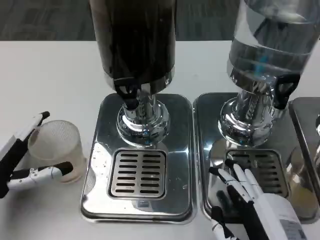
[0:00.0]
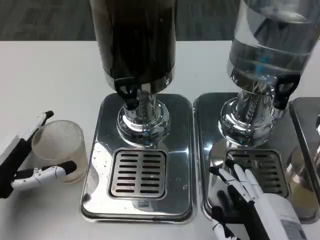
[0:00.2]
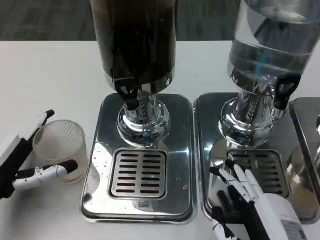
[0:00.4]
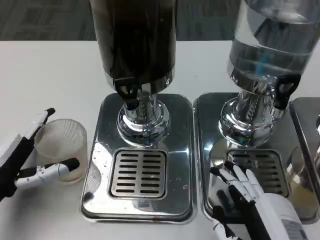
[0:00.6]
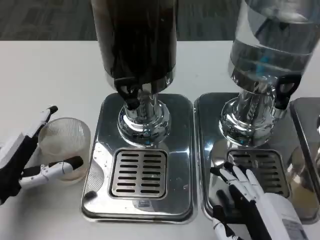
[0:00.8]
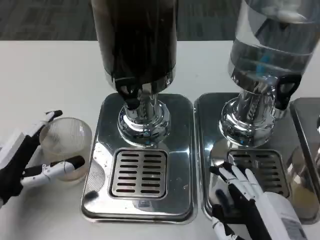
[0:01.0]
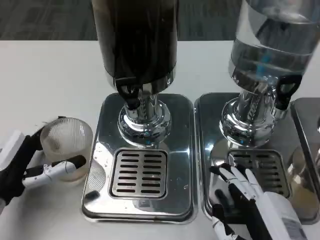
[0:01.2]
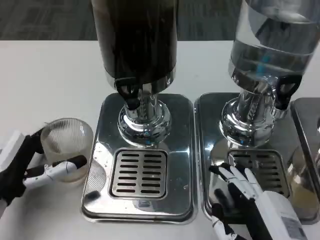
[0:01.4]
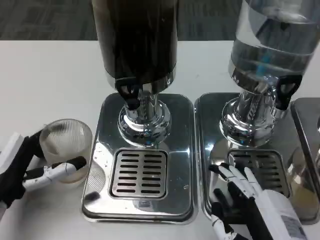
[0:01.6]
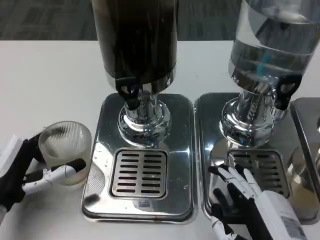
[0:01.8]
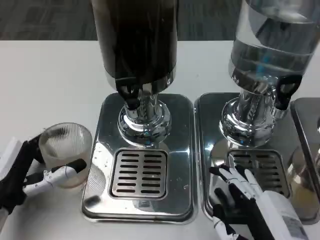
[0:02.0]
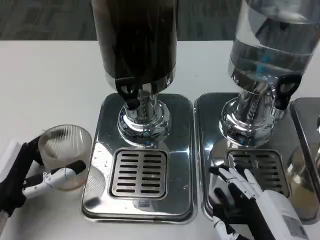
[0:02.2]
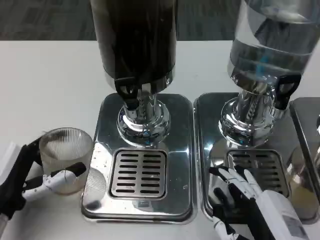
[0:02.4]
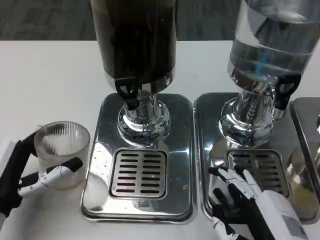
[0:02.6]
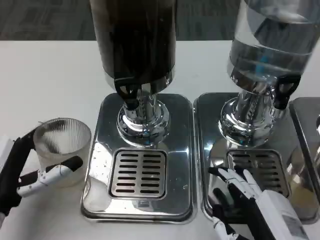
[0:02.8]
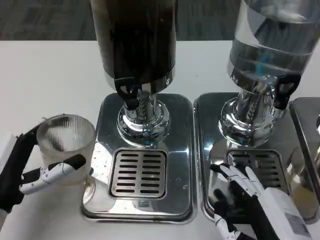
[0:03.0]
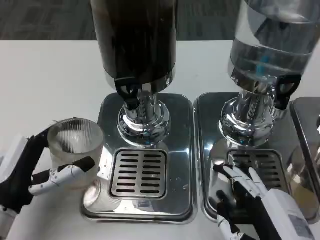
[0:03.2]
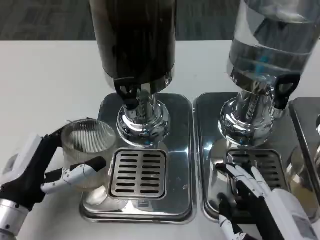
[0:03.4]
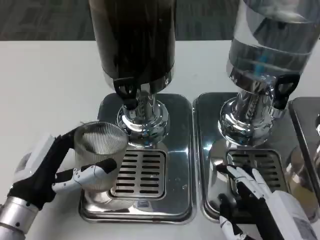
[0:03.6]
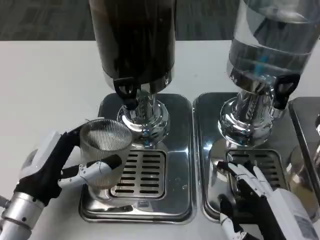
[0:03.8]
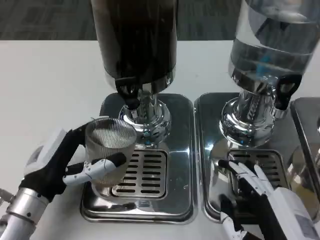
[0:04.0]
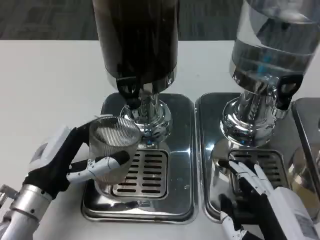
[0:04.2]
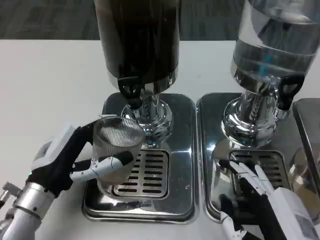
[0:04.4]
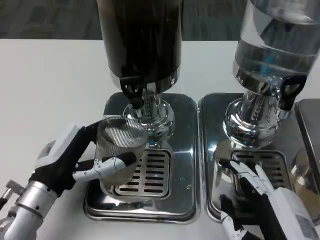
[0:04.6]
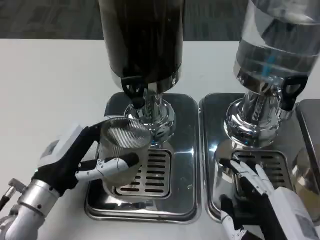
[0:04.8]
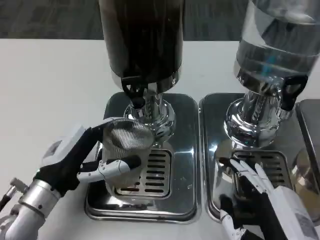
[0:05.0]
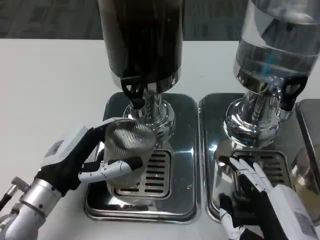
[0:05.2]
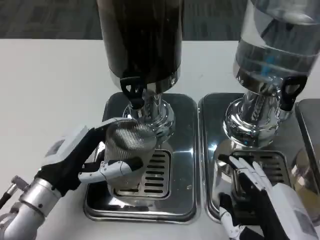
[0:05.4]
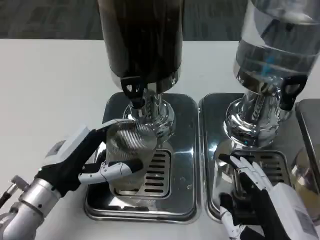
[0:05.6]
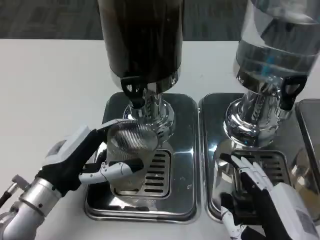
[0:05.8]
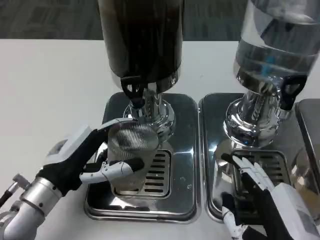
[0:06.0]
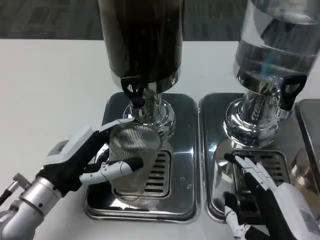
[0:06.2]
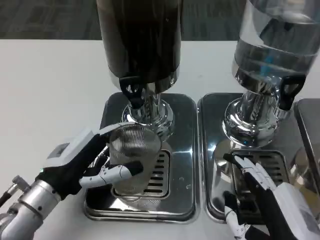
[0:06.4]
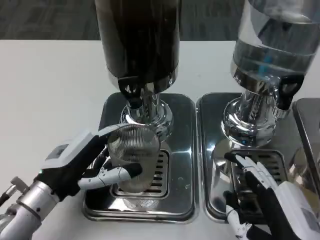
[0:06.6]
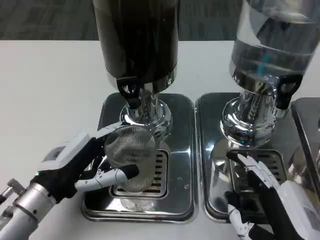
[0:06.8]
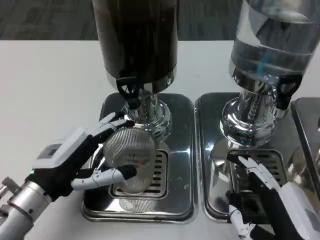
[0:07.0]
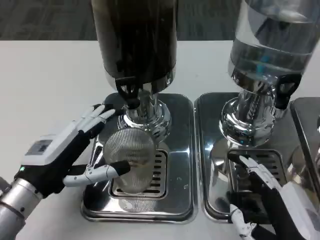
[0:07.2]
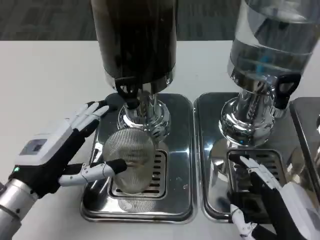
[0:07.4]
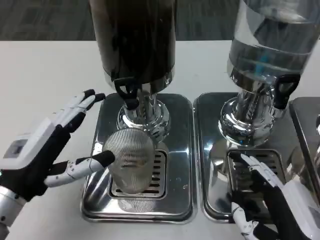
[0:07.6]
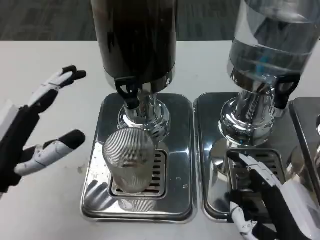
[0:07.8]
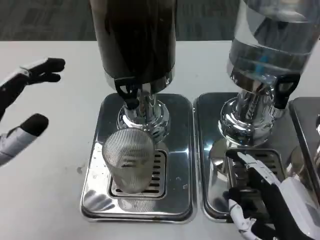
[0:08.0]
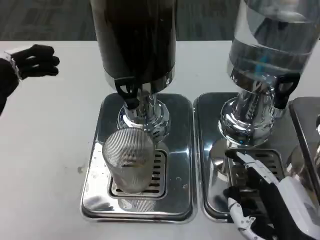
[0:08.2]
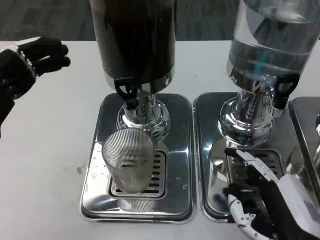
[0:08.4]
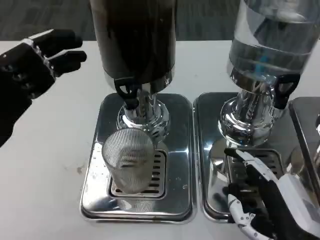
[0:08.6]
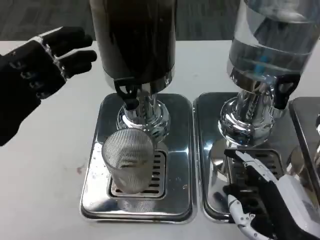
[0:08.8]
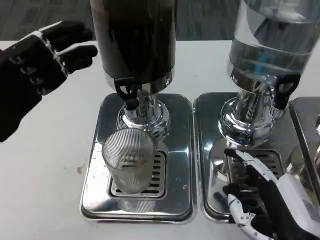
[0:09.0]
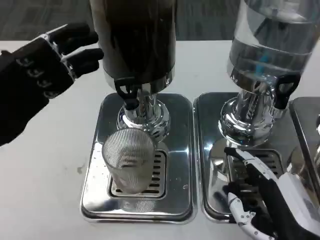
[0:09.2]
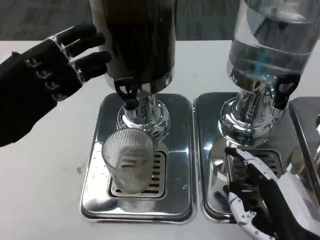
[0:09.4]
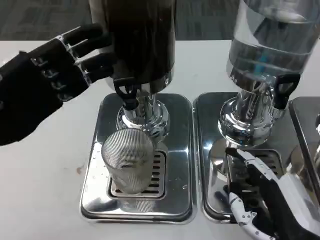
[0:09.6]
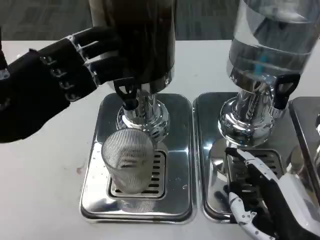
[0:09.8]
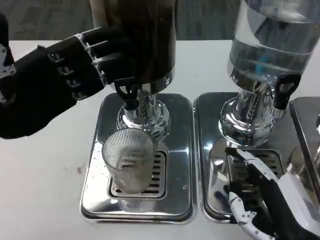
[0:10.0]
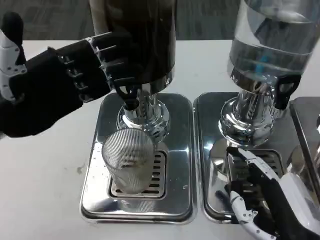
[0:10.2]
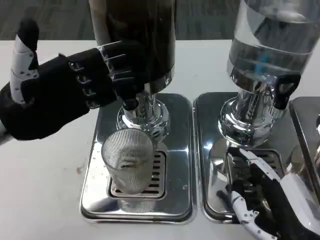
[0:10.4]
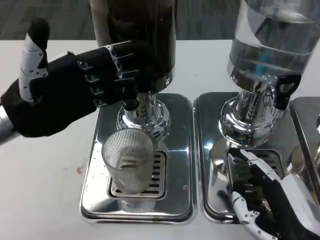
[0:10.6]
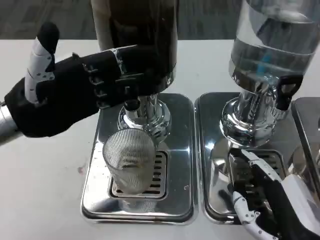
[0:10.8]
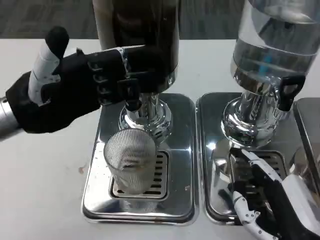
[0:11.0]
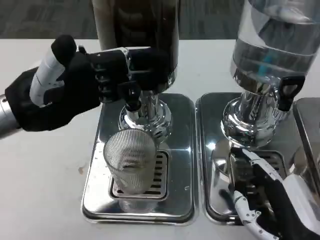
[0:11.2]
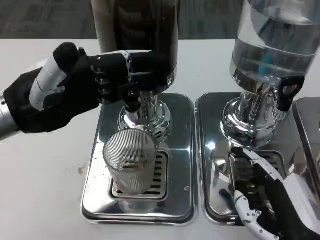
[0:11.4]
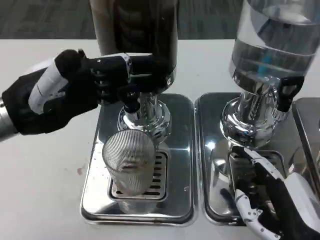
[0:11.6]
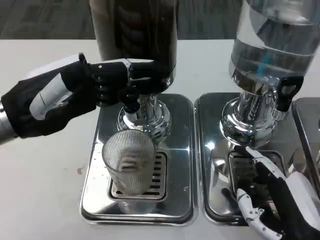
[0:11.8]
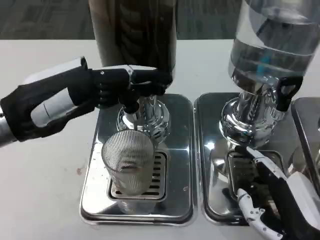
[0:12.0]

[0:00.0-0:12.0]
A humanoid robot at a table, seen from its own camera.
Task of the whole recording: Grasp the cup under the faucet to collect the drink, then remove the cup.
0:00.0 to 0:01.6: The hands stay close to where they were, moving slightly.
0:01.6 to 0:03.0: The hands make only small movements.
0:03.0 to 0:04.4: The left hand changes place by approximately 5 cm.
0:06.0 to 0:07.6: The left hand ends up roughly 5 cm from where it was.
0:07.6 to 0:09.0: The left hand goes roughly 10 cm upward and to the left.
0:09.0 to 0:10.4: The left hand moves roughly 5 cm.

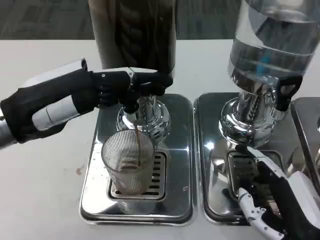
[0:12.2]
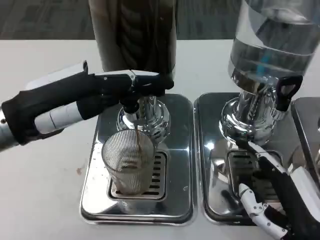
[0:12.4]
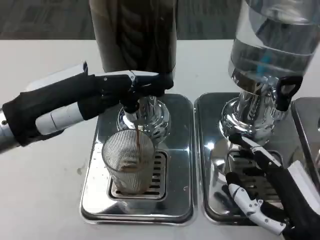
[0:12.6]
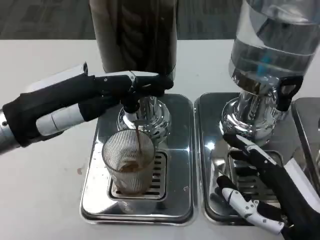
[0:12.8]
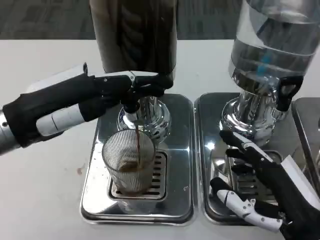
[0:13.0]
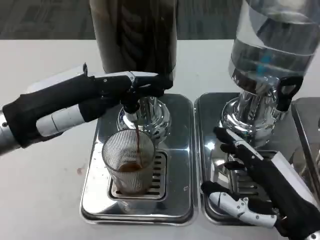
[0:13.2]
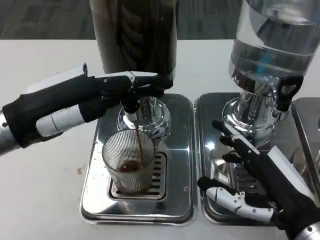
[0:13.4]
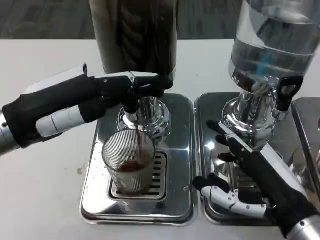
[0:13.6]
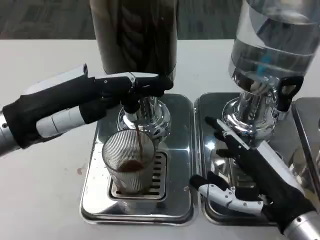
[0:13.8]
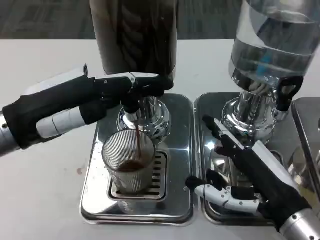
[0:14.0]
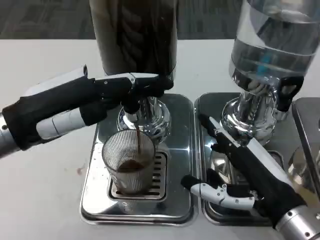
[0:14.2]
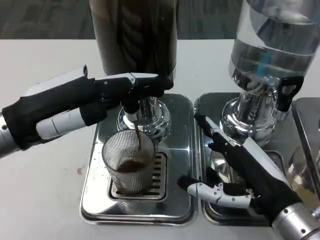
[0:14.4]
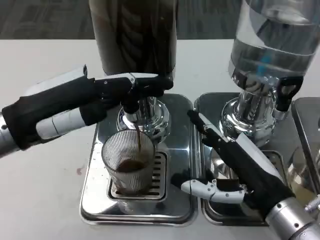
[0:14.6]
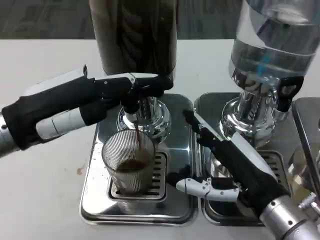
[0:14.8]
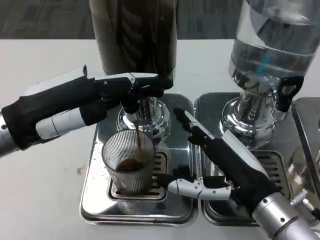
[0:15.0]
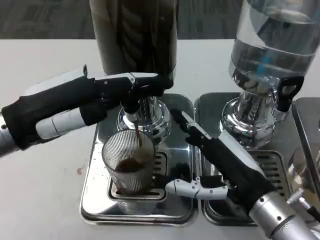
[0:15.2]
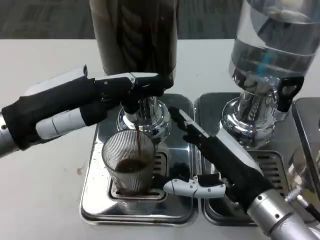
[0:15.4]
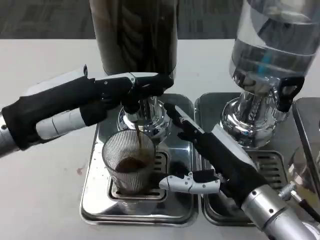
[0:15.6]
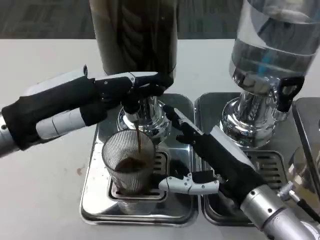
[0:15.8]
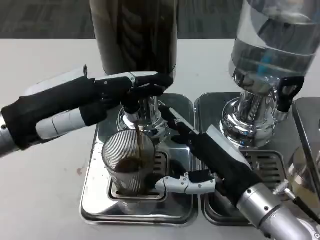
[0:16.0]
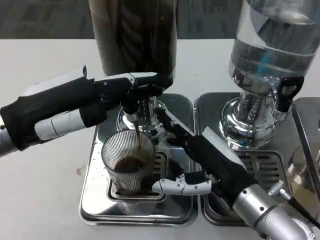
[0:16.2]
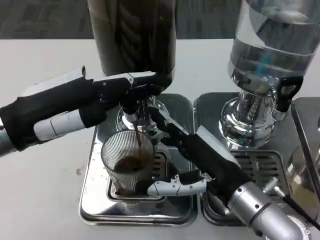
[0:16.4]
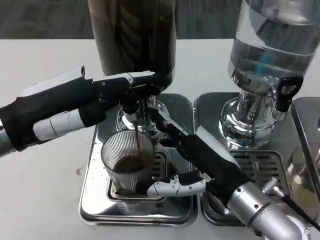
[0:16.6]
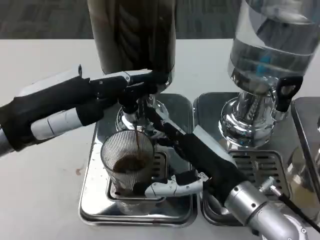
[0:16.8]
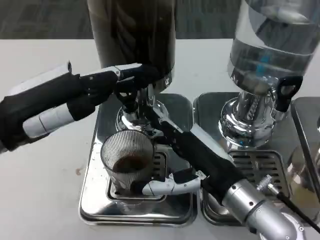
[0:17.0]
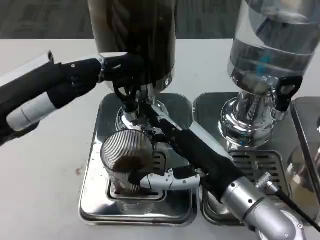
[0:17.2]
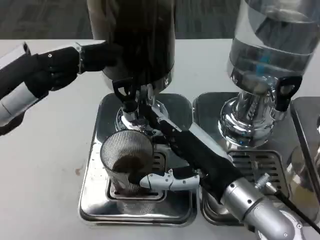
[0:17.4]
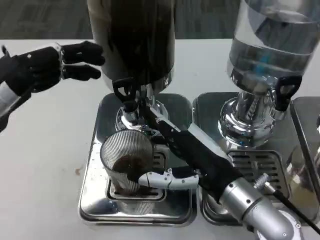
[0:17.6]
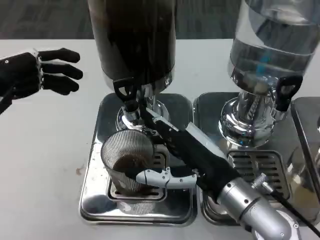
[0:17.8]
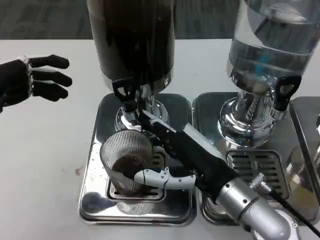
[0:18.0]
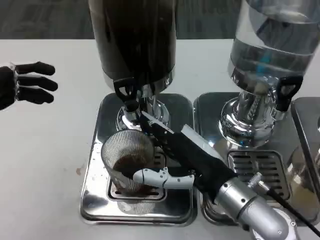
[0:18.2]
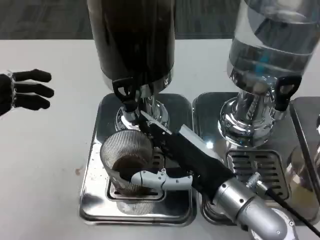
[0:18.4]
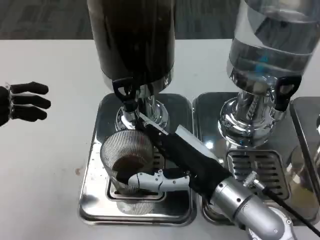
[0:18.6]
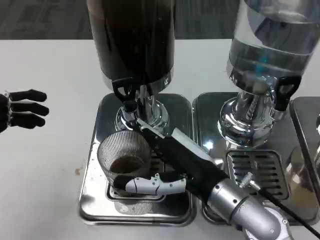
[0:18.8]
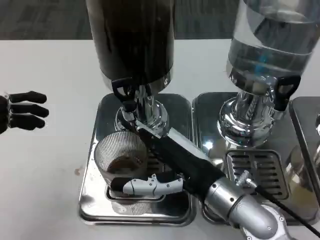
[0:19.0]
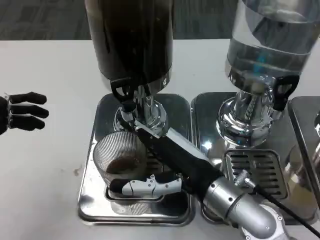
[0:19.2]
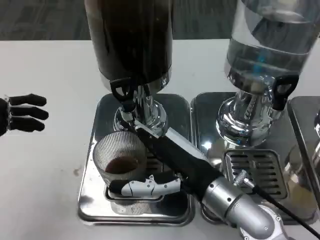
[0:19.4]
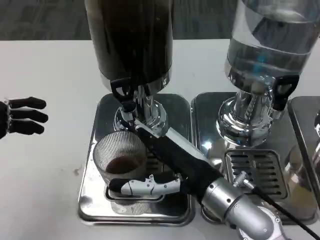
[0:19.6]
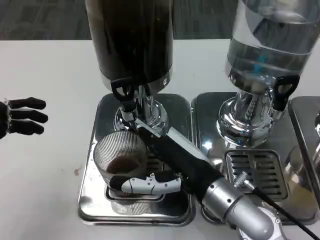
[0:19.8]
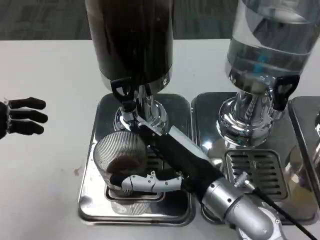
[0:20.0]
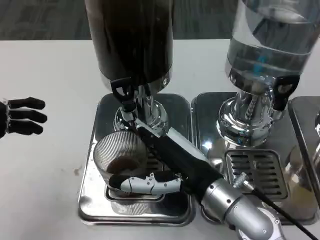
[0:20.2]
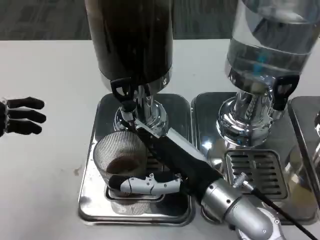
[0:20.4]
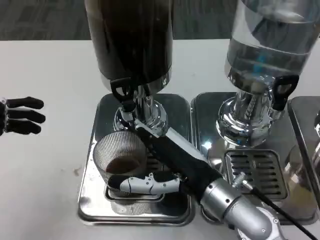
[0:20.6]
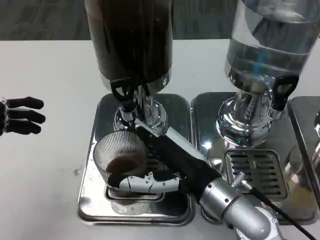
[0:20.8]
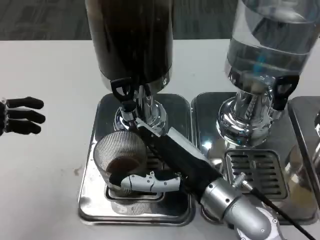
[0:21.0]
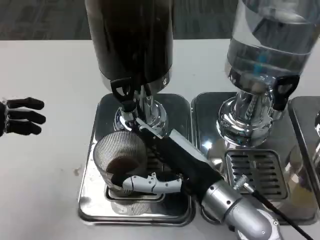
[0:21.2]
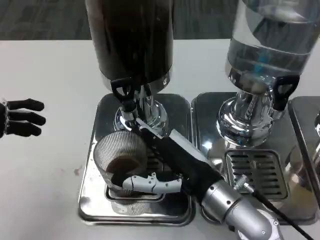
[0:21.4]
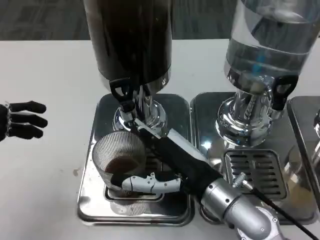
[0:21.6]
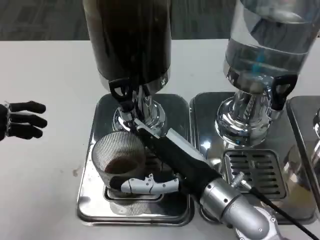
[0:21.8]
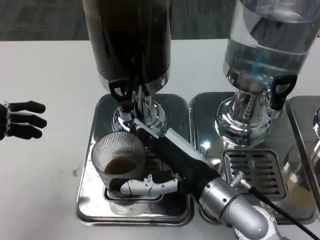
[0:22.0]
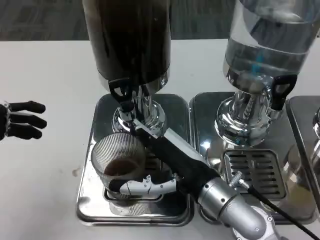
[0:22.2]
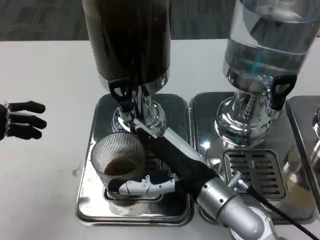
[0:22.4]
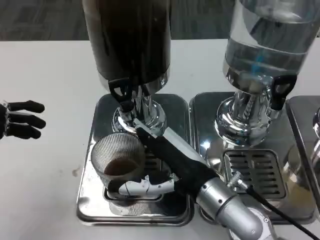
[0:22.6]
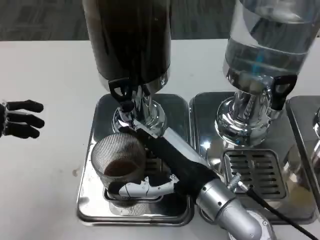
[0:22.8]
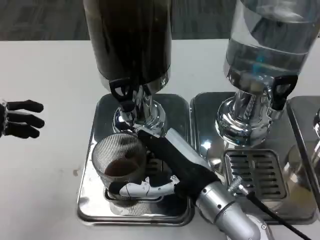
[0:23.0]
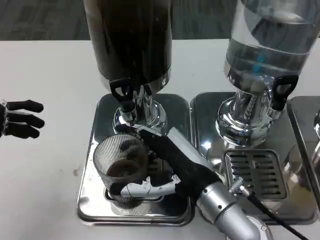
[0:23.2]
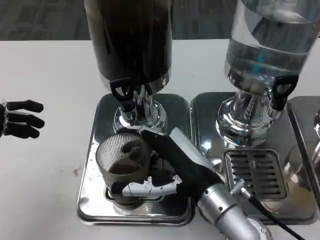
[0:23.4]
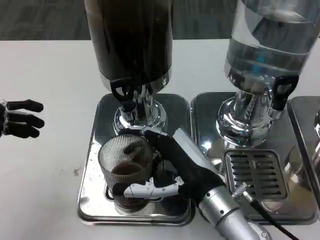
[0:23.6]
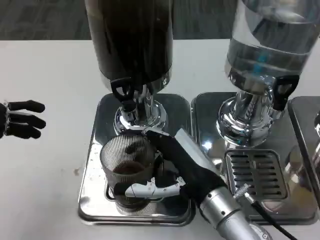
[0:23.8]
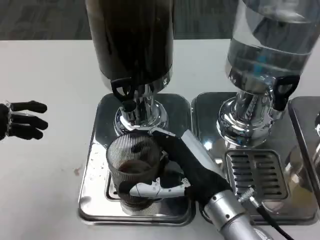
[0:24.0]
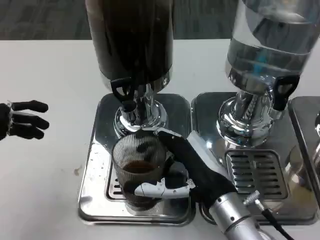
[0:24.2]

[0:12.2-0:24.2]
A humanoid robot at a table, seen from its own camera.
Task of the whole recording: Grasp the cup under the faucet to collect the drink, then remove the cup.
0:12.2 to 0:13.8: The right hand ends up some 5 cm from where it was.
0:13.8 to 0:15.2: The hands move only a little.
0:15.2 to 0:16.6: The hands make only small movements.
0:16.6 to 0:18.2: The left hand travels to the left and backward by some 10 cm.
0:19.8 to 0:21.2: Both hands stay put.
0:21.2 to 0:22.6: The hands stay close to where they were, moving slightly.
